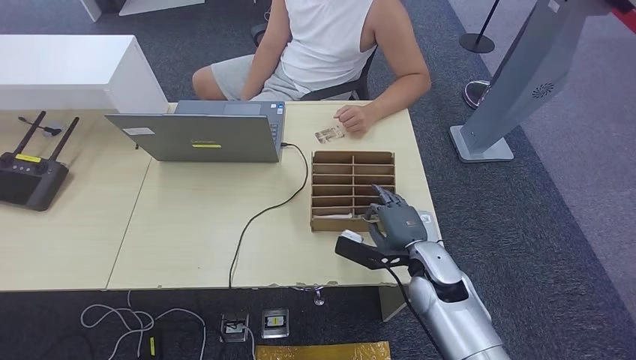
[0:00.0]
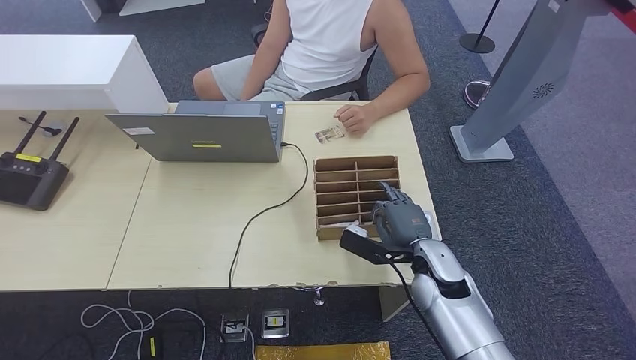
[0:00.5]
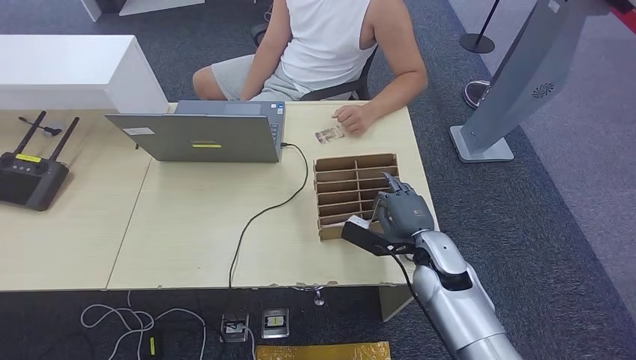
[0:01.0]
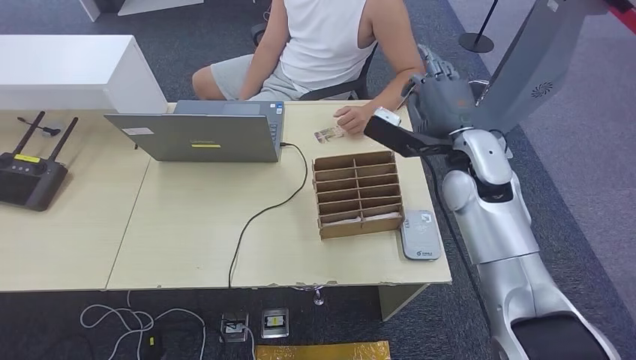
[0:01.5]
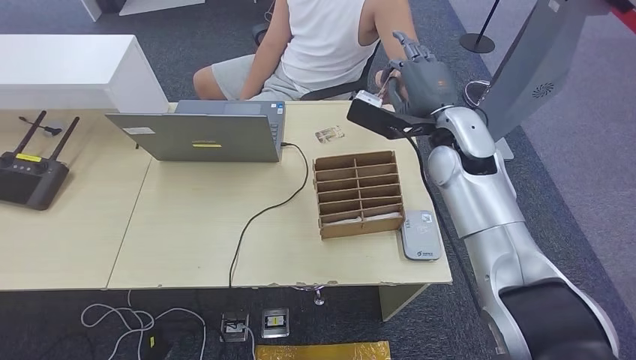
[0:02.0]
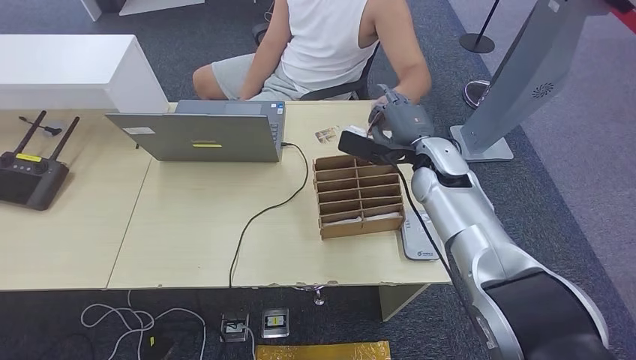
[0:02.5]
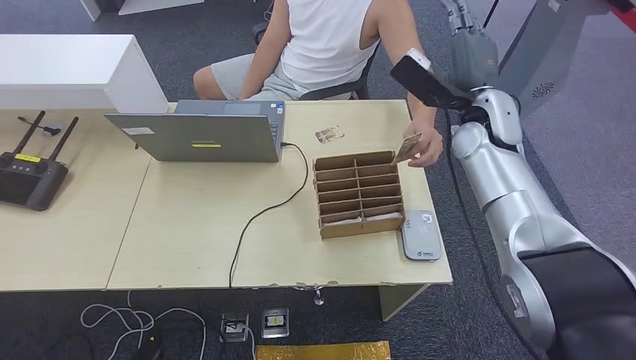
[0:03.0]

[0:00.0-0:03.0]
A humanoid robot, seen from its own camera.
Step, 0:02.0 to 0:03.0: Hand the room key to the person.
0:00.0 to 0:01.5: The right hand moves upward and forward, roughly 20 cm.
0:01.5 to 0:03.0: The right hand shifts some 5 cm forward.
